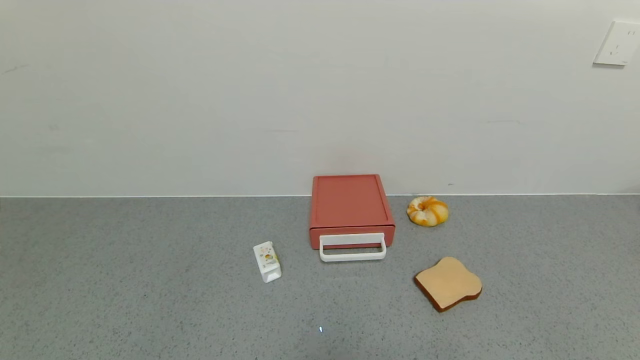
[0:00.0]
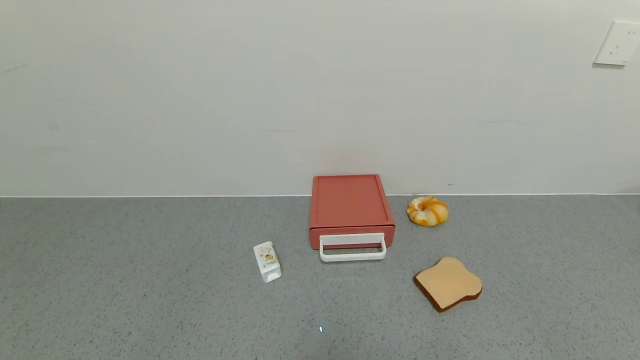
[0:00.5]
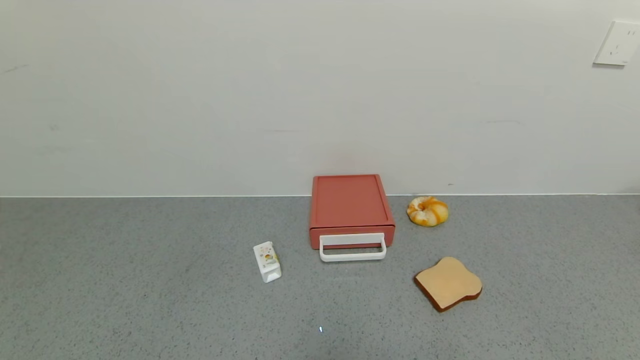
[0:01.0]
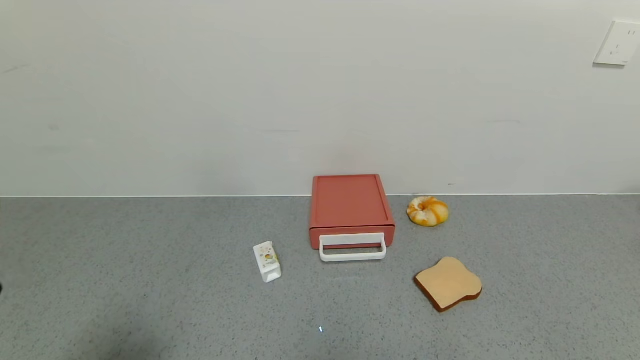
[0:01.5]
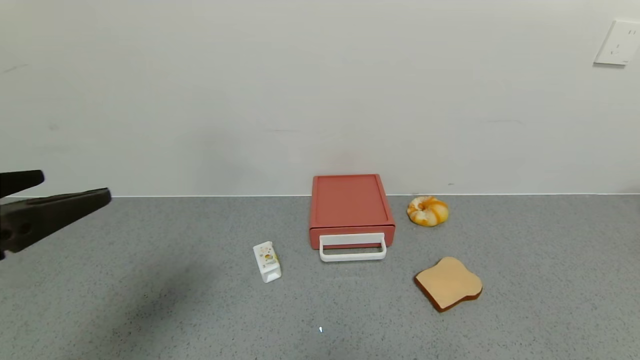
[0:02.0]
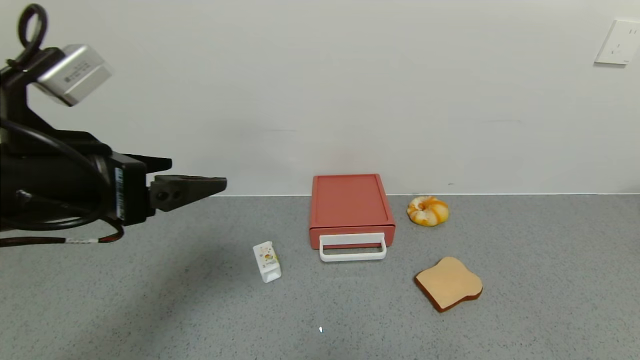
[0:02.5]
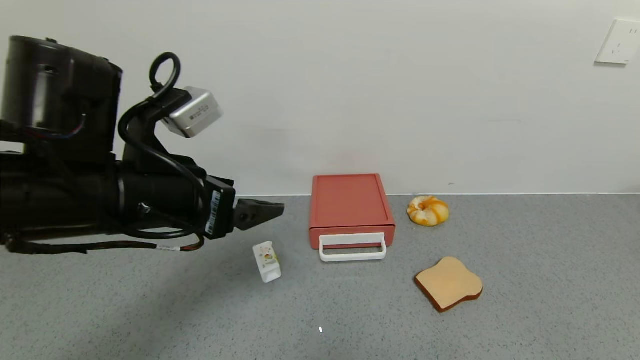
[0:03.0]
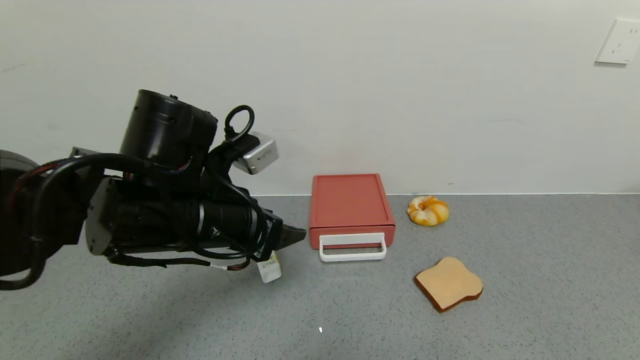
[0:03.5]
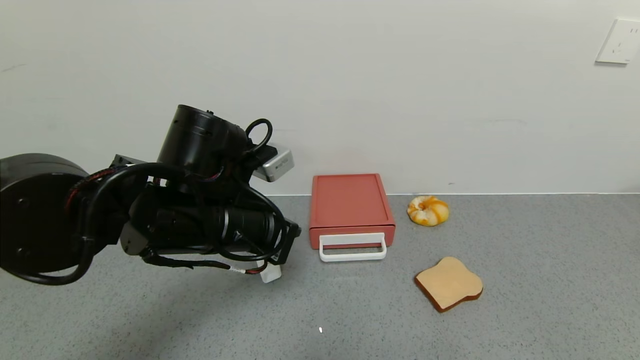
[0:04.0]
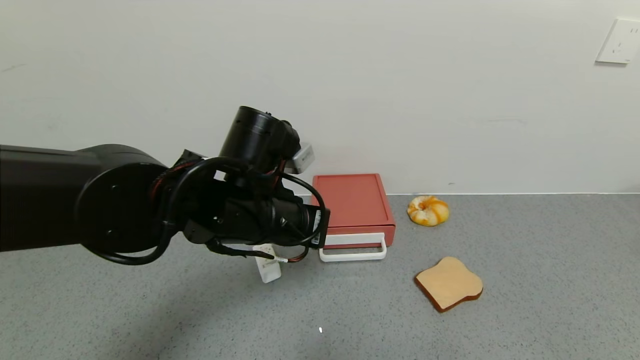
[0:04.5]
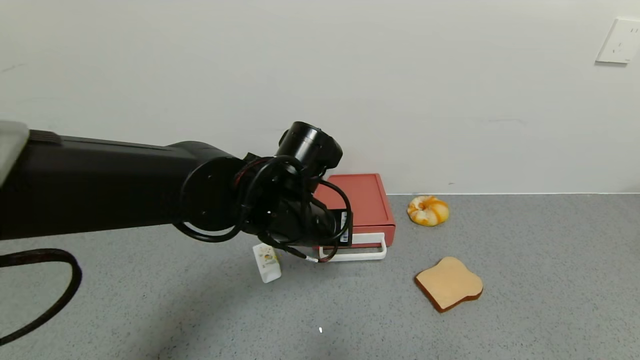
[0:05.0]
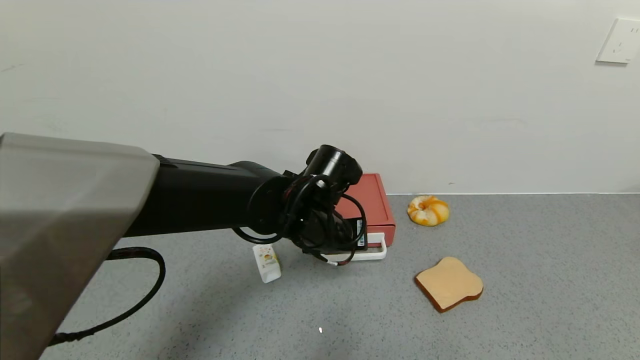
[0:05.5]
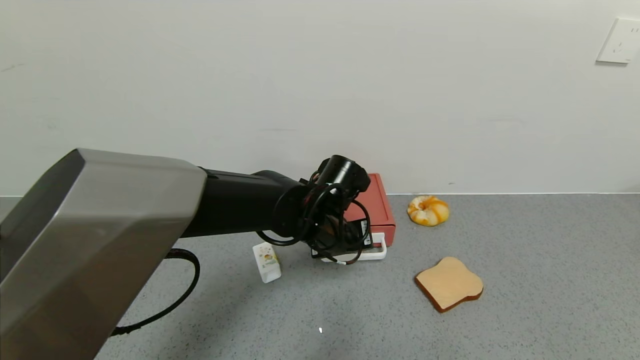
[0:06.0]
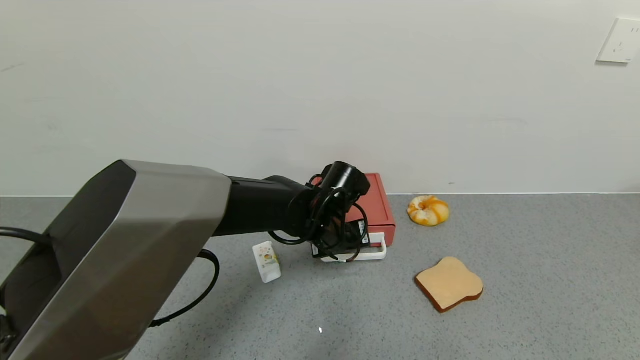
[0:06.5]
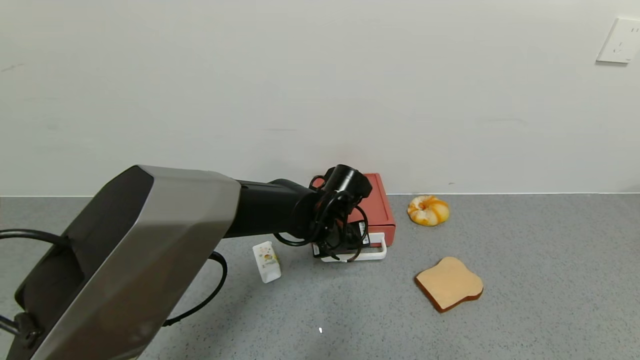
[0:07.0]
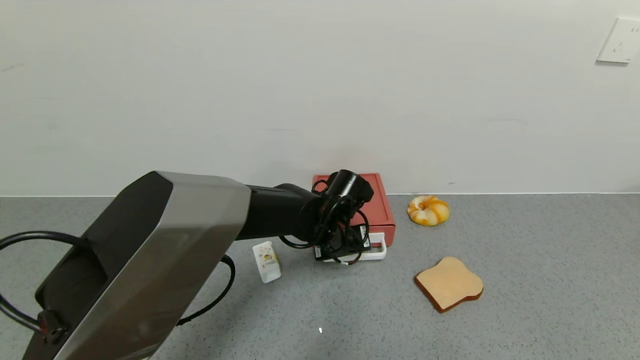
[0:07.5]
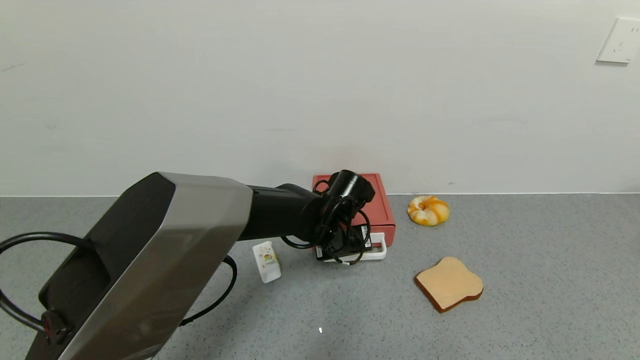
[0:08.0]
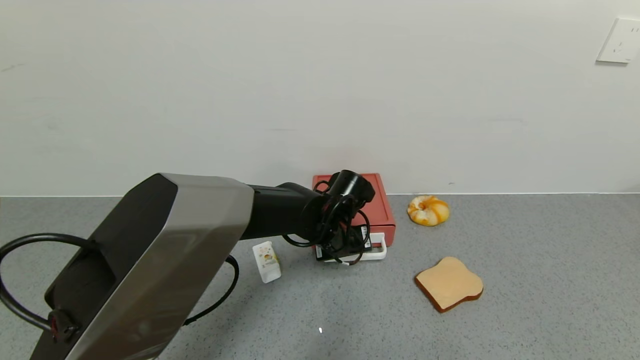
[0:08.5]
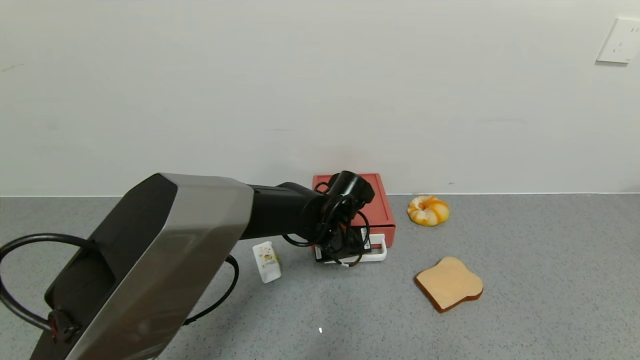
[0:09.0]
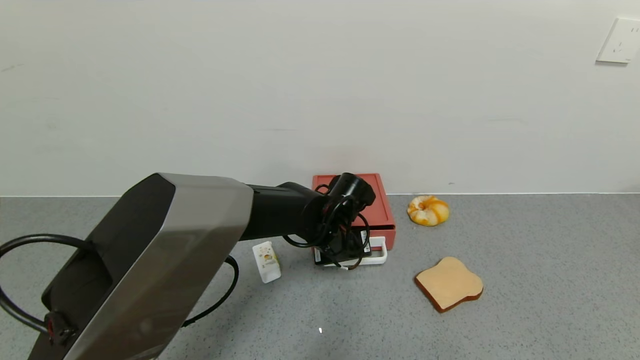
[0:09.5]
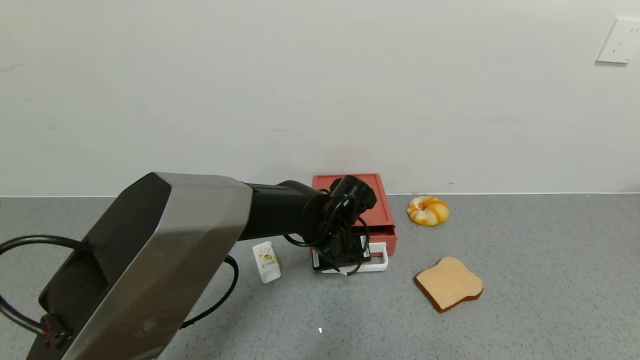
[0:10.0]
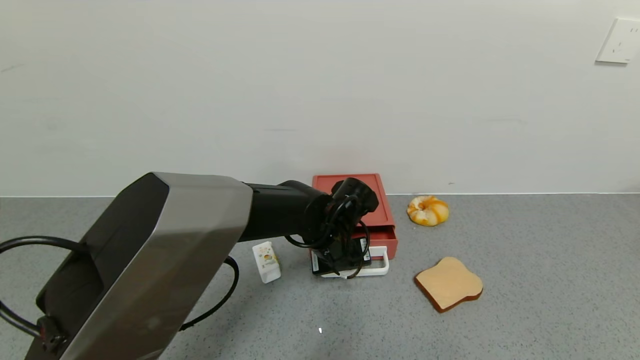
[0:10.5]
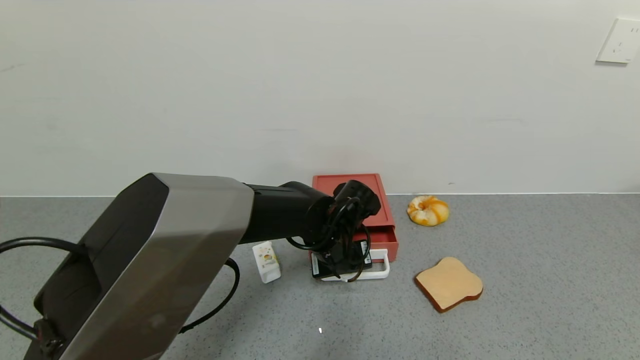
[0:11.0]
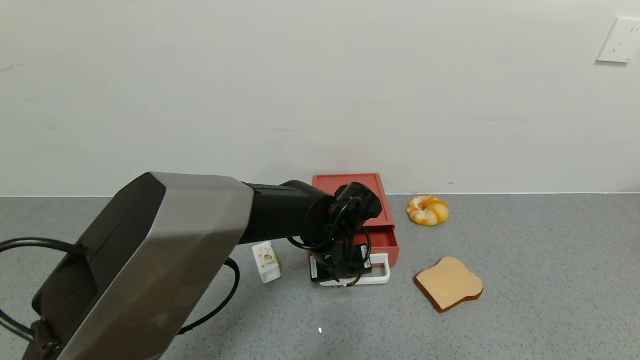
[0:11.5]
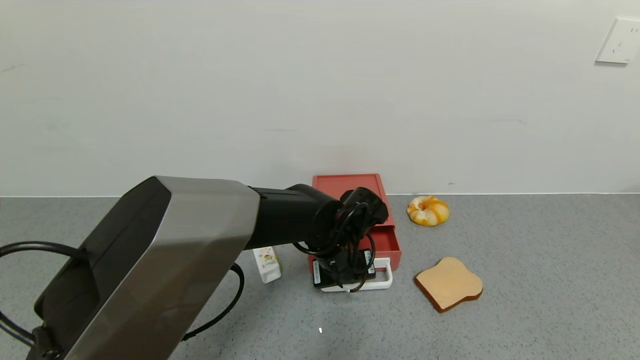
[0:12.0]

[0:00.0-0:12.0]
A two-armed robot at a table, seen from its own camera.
Task of the whole recording: use the gripper to open the drawer and close the red drawer.
0:00.0 to 0:02.0: The left gripper shifts some 25 cm upward and forward.
0:02.0 to 0:04.0: The left gripper travels to the right, forward and downward by about 20 cm, and closes its fingers.
0:04.0 to 0:06.0: The left gripper moves to the right, forward and downward, some 15 cm.
0:06.0 to 0:12.0: The grippers stay close to where they were, moving slightly.

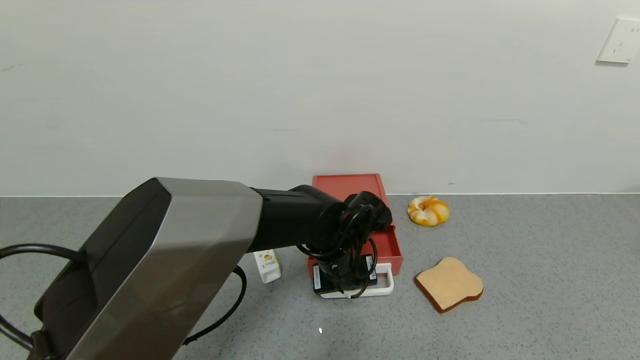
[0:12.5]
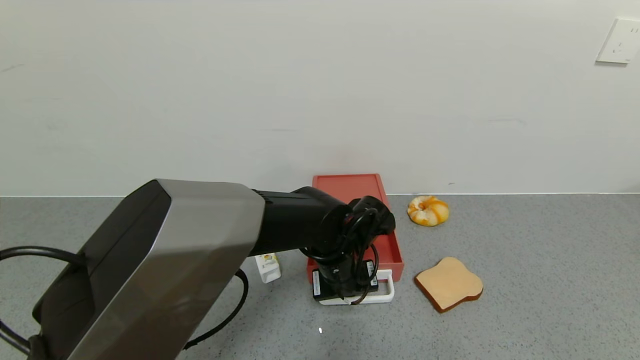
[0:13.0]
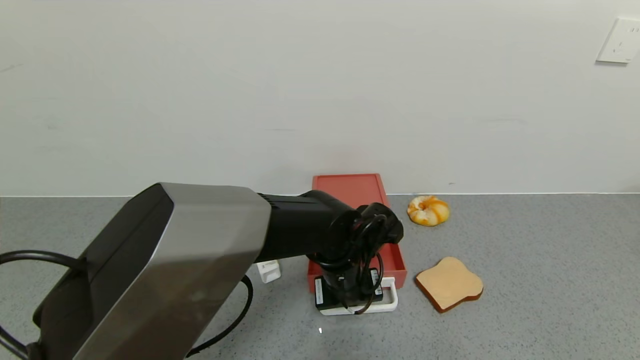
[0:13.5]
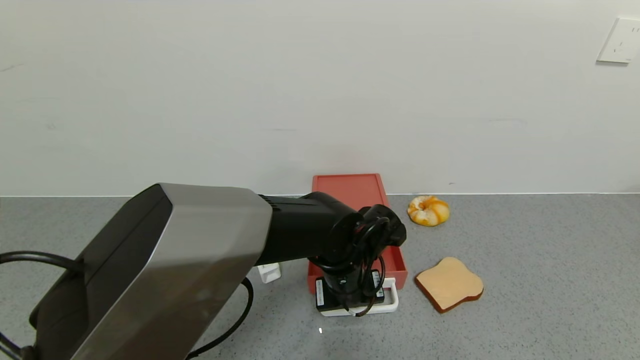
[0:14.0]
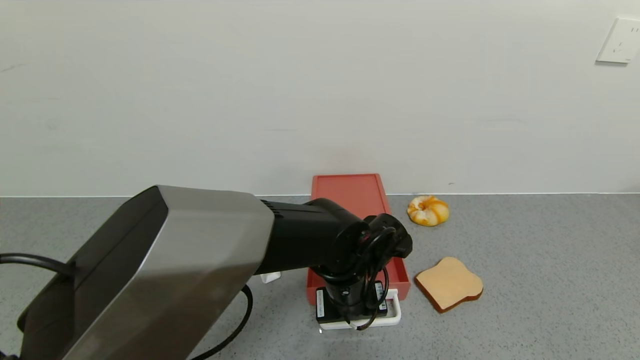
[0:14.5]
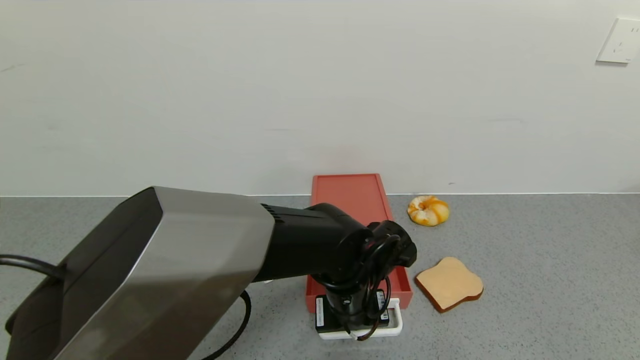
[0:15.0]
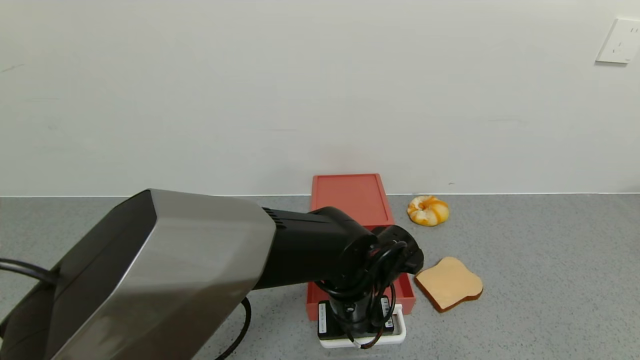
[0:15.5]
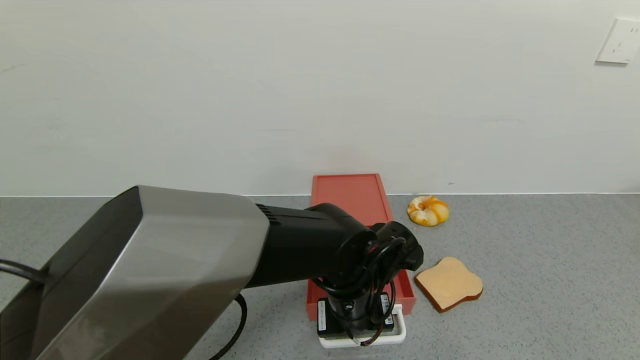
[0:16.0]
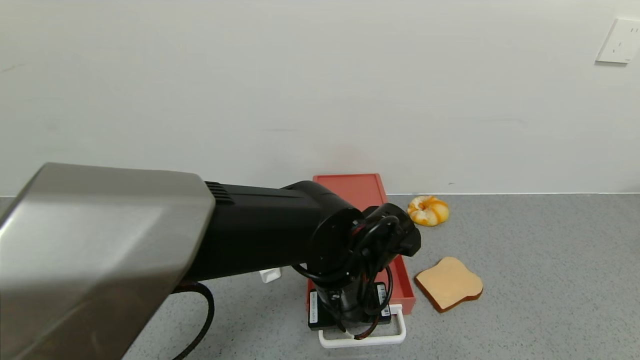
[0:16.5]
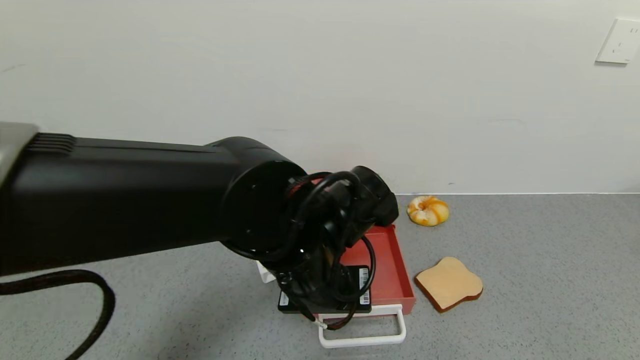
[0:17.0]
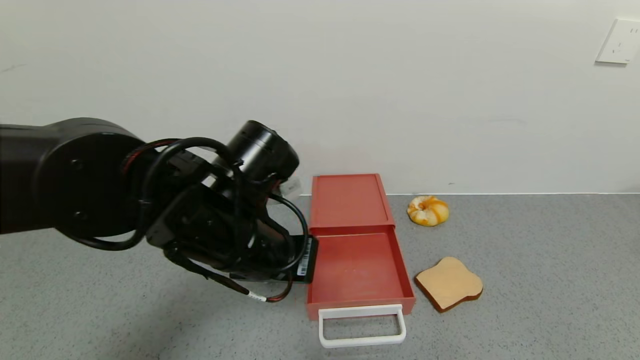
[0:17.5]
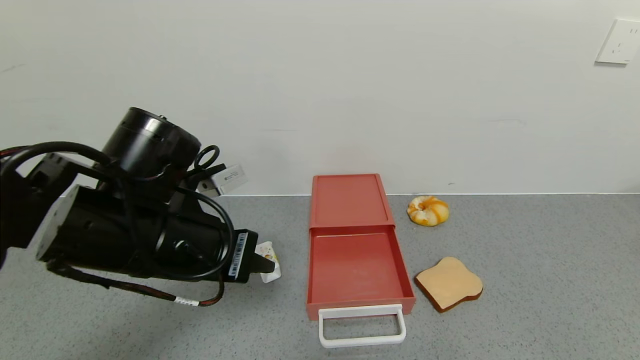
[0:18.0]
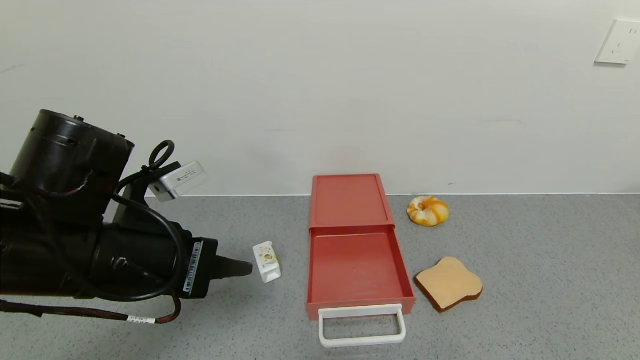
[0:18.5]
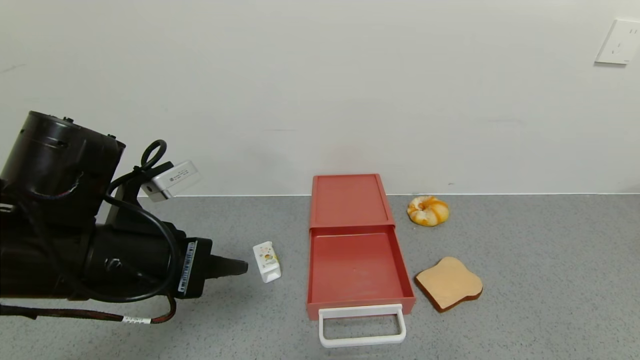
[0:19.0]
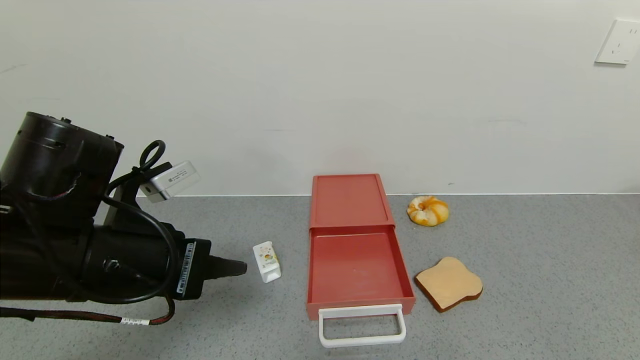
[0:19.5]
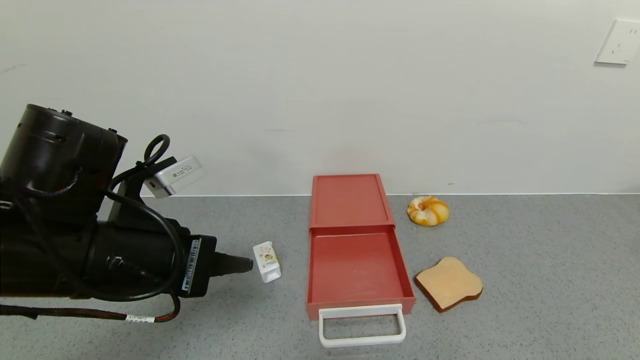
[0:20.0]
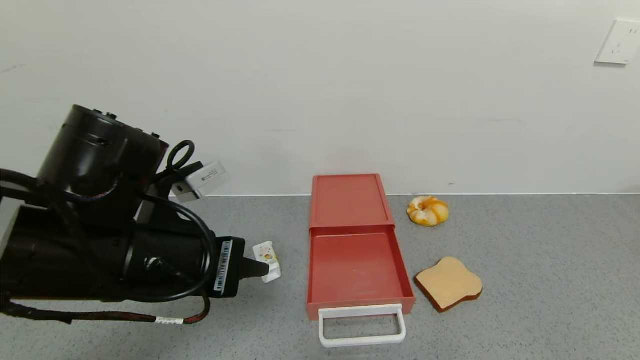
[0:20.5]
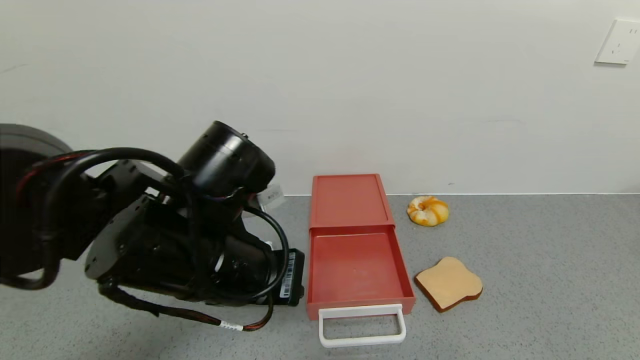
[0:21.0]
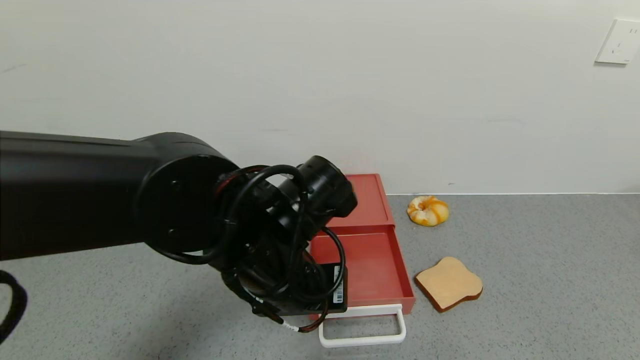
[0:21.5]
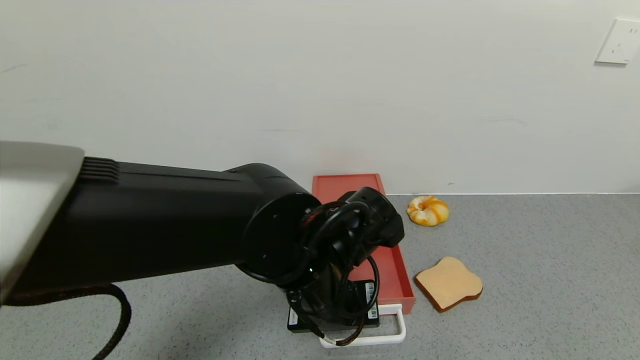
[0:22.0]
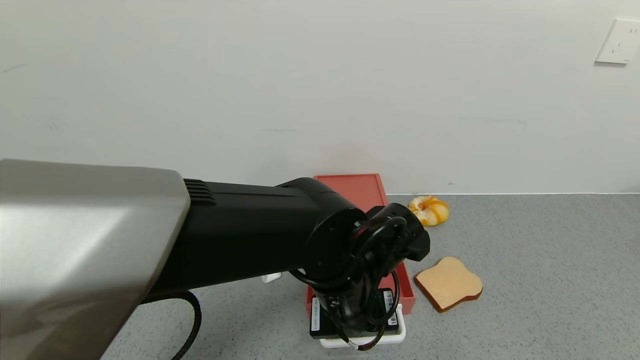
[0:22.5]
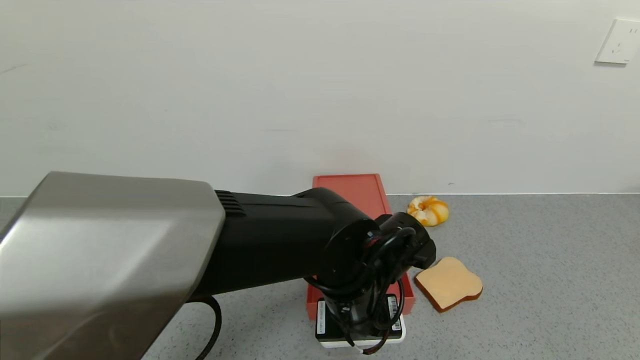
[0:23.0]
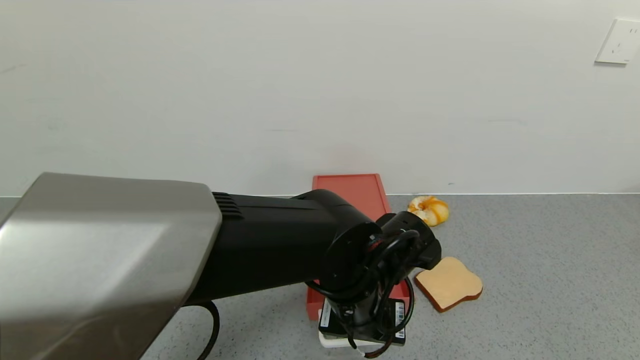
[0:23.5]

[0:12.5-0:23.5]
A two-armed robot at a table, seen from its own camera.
Task of the whole recording: use the gripper to open the drawer and close the red drawer.
Step, 0:12.5 to 0:16.5: Open the red drawer with the left gripper.
0:12.5 to 0:16.0: There are only small adjustments of the grippers.
0:16.0 to 0:18.0: The left gripper goes some 25 cm to the left and upward.
0:18.0 to 0:20.0: The grippers move only a little.
0:20.0 to 0:21.5: The left gripper moves to the right, approximately 15 cm.
0:21.5 to 0:23.5: The left gripper goes some 10 cm to the right and downward.
